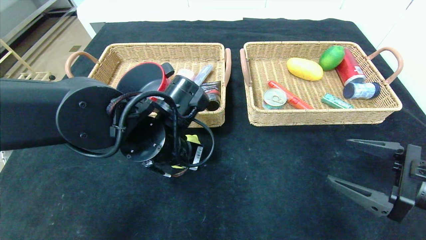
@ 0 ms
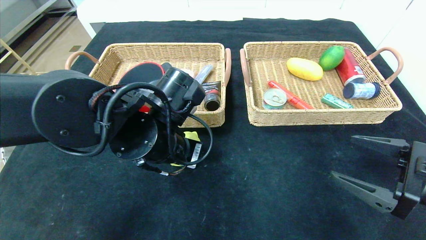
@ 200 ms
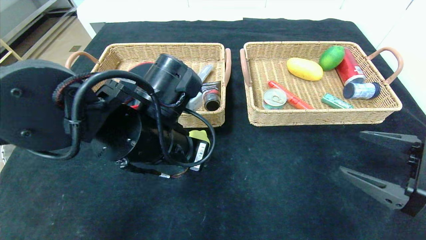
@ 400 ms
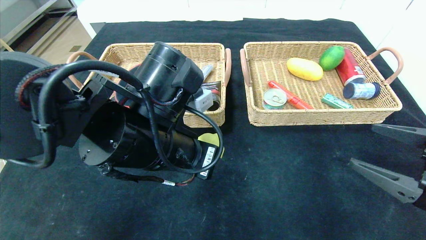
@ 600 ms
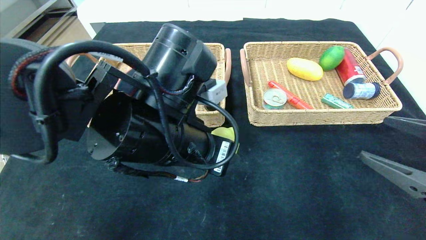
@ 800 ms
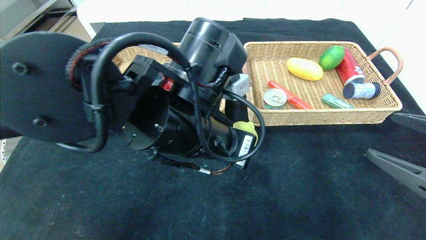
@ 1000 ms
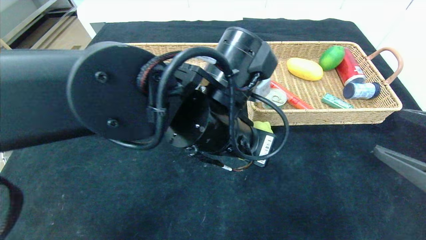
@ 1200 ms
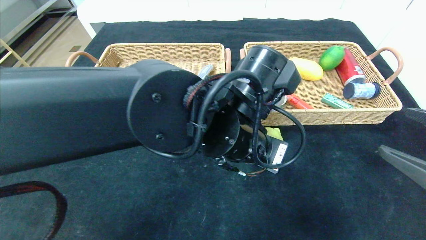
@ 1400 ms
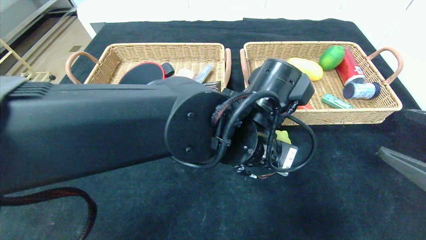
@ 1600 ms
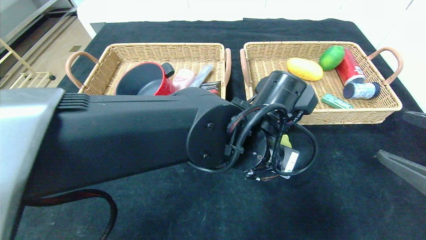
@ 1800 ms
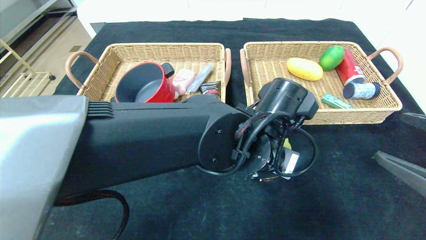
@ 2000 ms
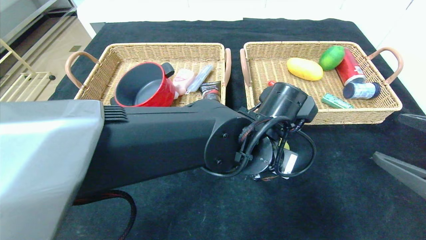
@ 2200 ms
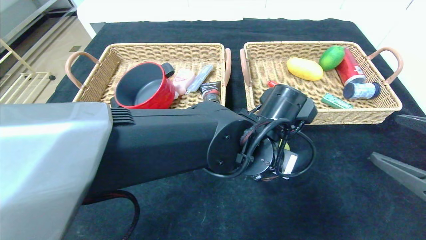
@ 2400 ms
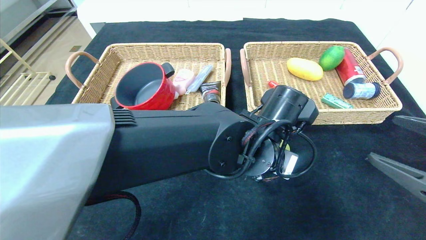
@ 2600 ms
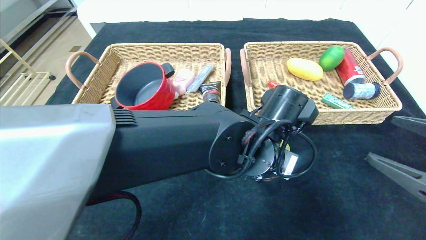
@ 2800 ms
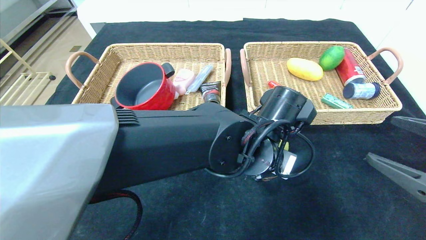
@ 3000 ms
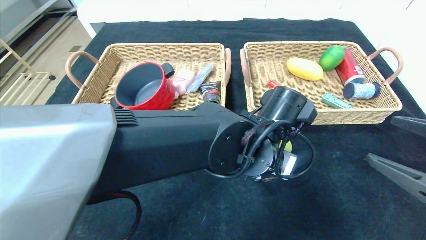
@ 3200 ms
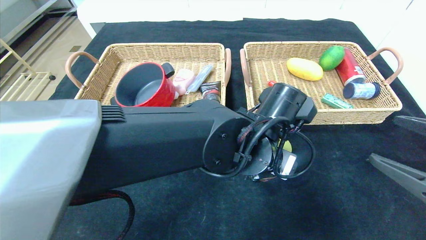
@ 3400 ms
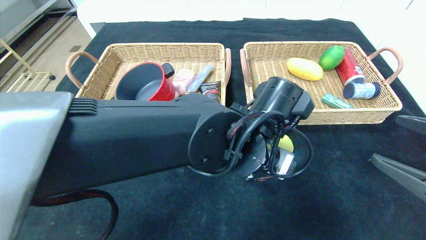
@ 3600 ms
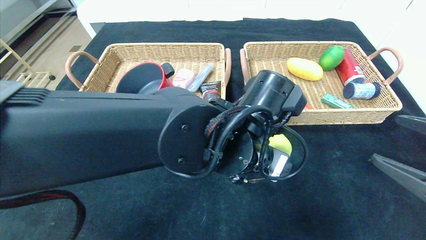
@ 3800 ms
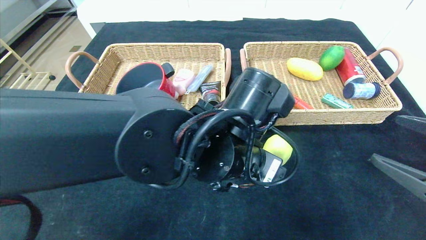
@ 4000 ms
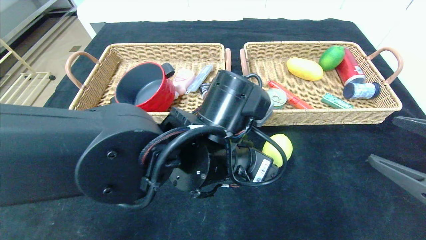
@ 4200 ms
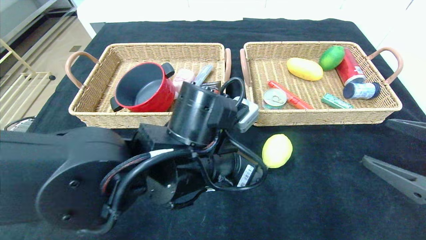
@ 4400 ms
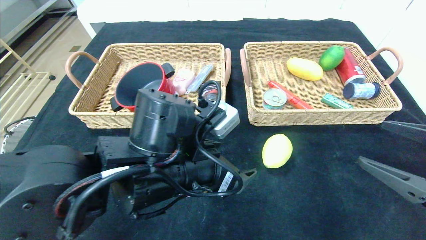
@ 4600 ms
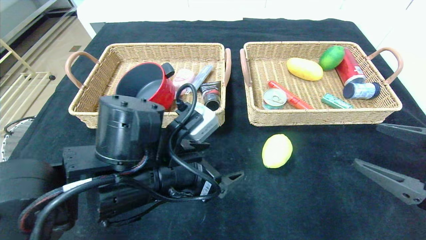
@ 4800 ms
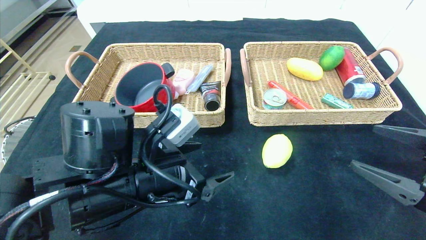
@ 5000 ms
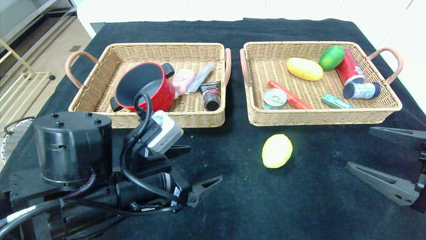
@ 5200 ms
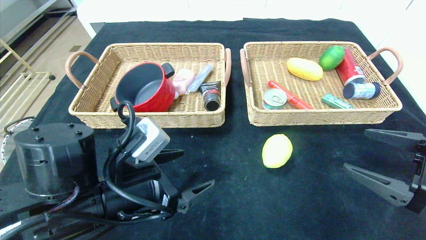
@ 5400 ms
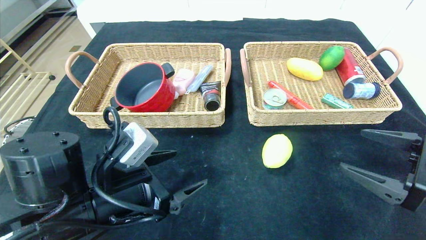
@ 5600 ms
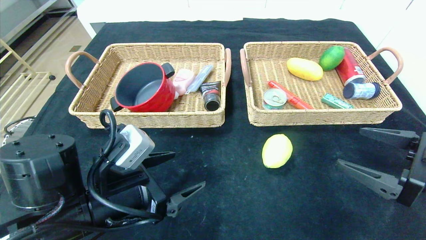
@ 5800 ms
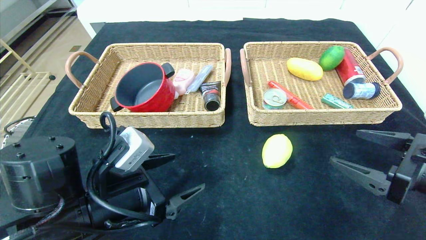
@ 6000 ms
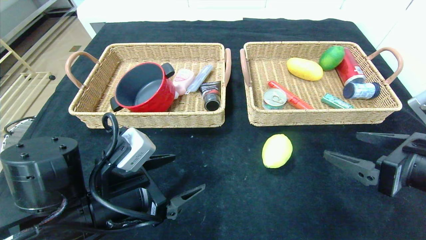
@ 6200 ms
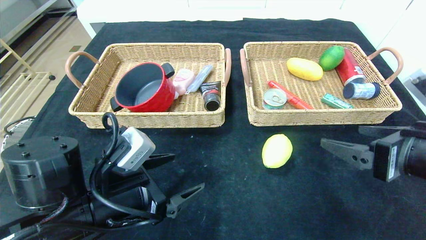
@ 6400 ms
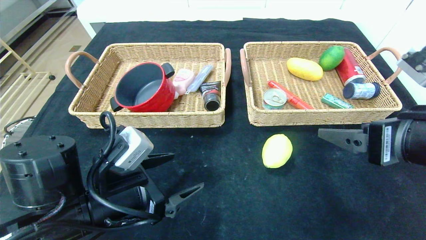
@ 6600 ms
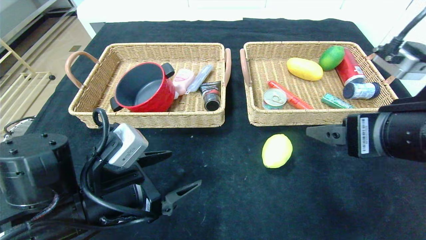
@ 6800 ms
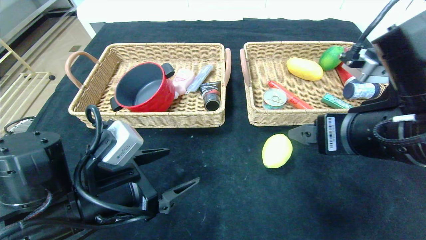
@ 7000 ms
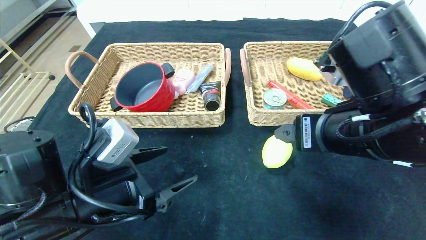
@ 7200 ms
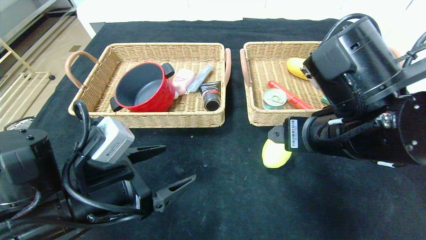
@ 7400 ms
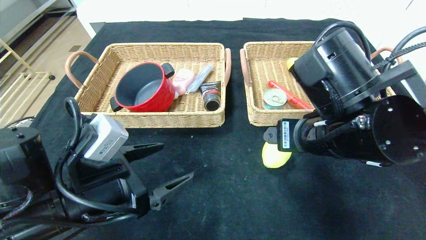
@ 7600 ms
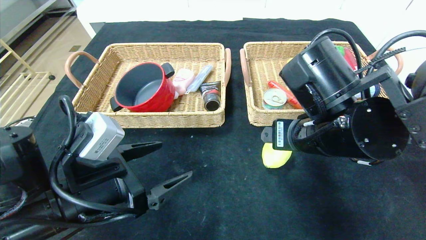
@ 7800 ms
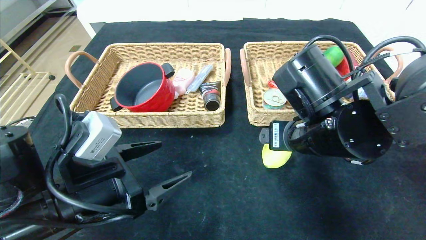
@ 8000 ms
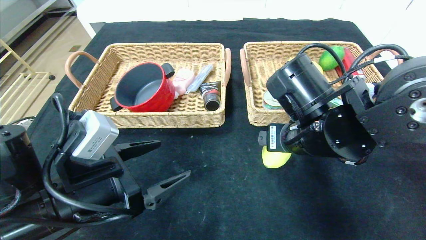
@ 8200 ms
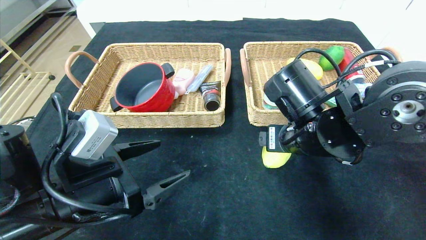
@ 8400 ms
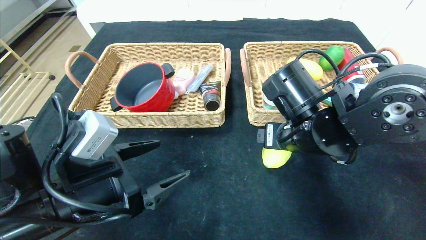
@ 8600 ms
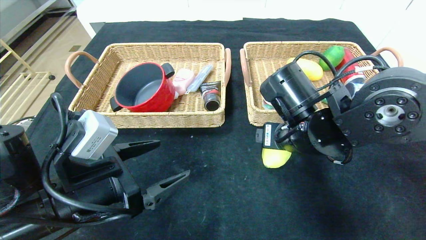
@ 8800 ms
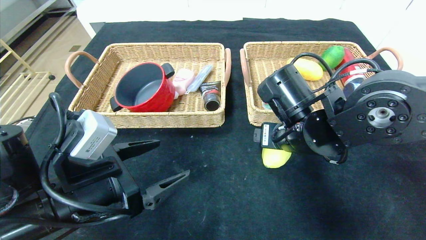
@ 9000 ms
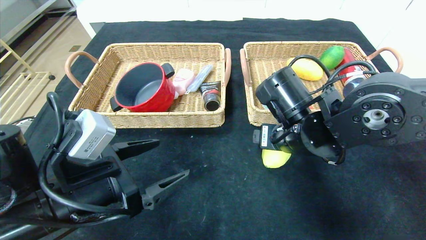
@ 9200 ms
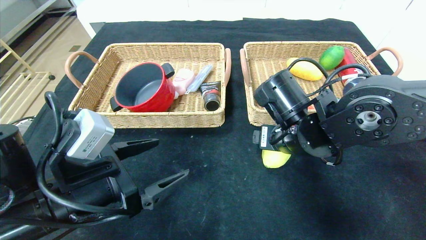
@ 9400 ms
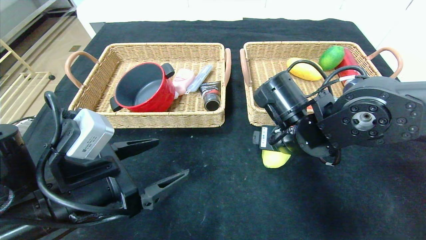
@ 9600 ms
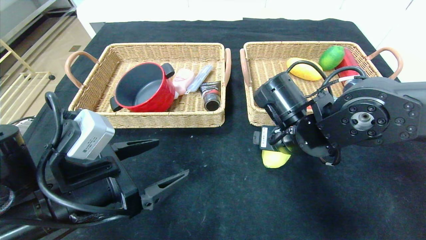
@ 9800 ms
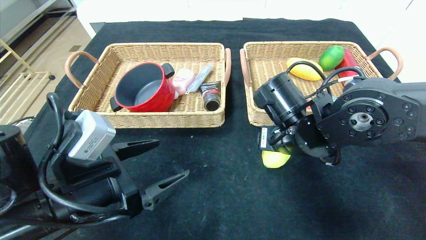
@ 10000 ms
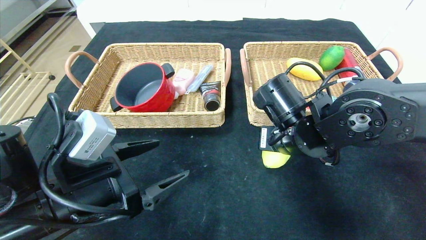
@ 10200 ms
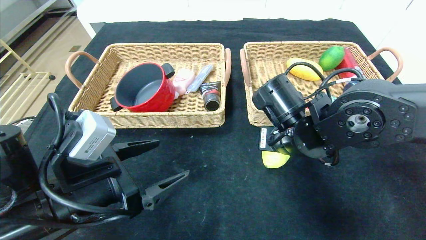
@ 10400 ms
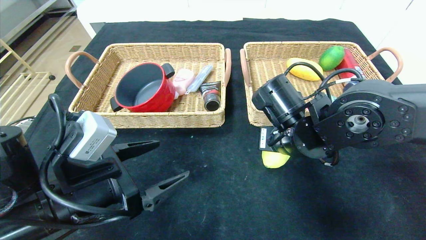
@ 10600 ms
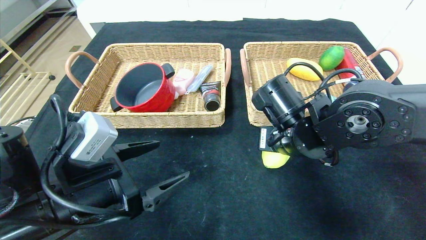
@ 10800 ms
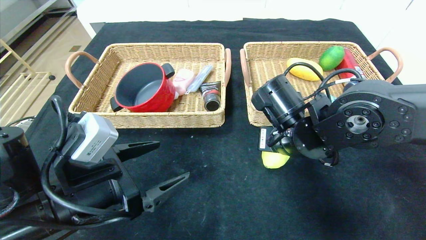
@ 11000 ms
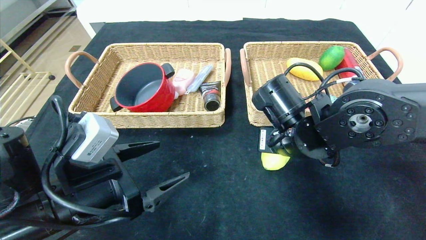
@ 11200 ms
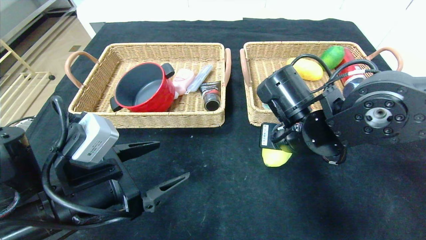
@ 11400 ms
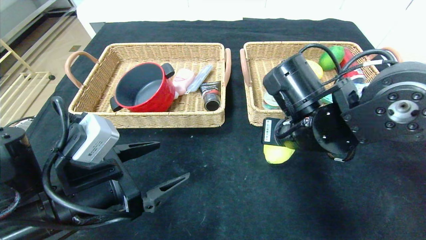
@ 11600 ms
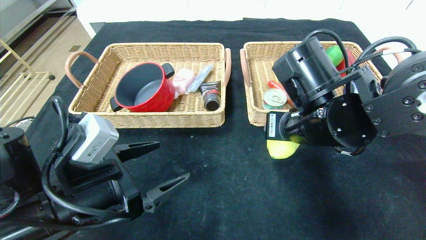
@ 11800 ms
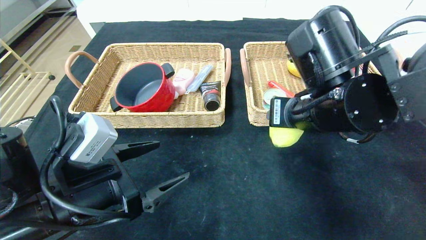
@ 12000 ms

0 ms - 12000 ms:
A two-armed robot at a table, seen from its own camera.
Step, 0 ms - 4600 ms: Place the lemon and put it in the center of the table.
0 ms - 1600 ms: The left gripper travels to the right by approximately 15 cm; the right gripper ends up some 5 cm from where it was.
3000 ms - 4400 ms: The left gripper is displaced to the left by roughly 10 cm.
4400 ms - 6000 ms: The left gripper shifts approximately 15 cm to the left.
6000 ms - 7600 ms: The right gripper shifts some 15 cm to the left.
7600 ms - 9000 ms: The right gripper heads forward, covering roughly 5 cm.
9000 ms - 10400 ms: The right gripper closes.
10400 ms - 12000 ms: The right gripper is displaced upward by about 5 cm.

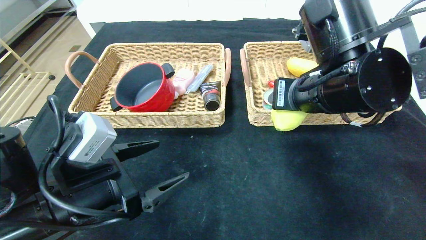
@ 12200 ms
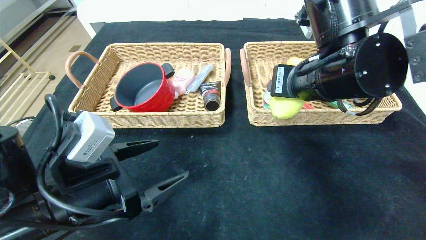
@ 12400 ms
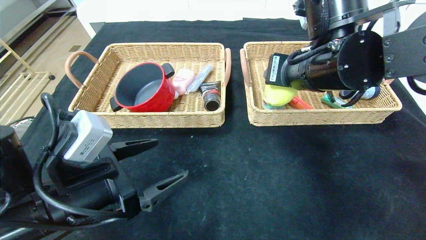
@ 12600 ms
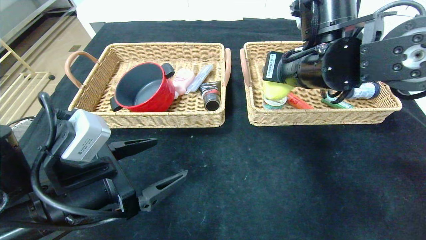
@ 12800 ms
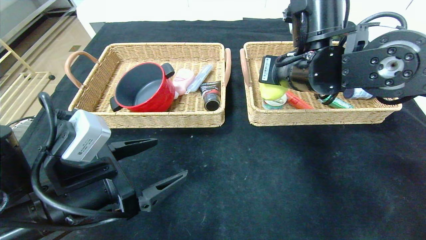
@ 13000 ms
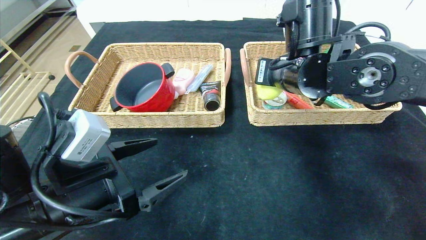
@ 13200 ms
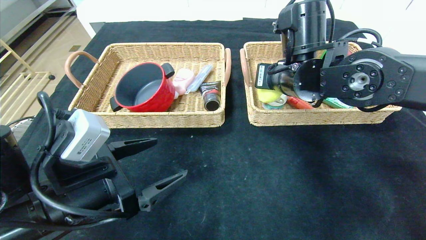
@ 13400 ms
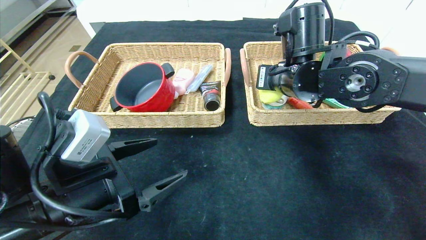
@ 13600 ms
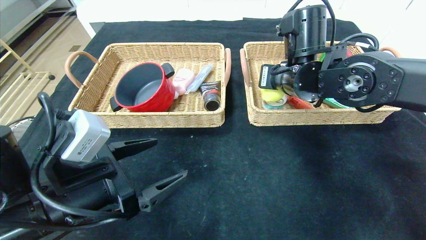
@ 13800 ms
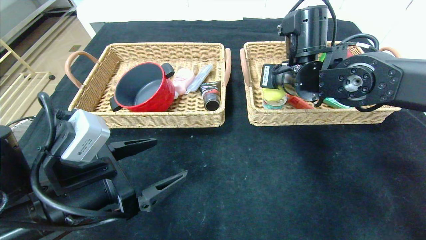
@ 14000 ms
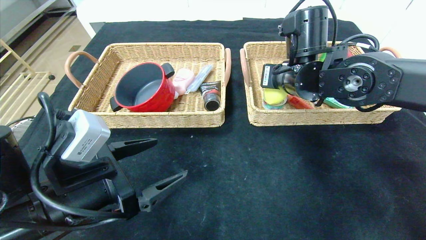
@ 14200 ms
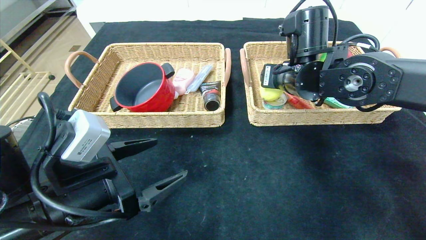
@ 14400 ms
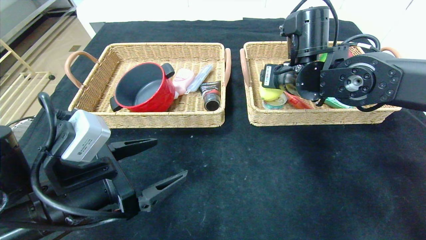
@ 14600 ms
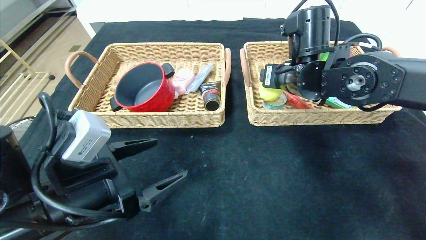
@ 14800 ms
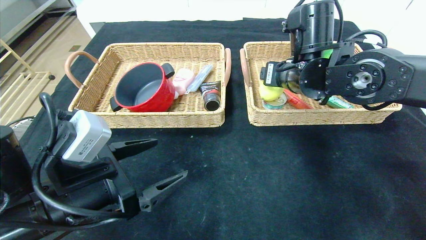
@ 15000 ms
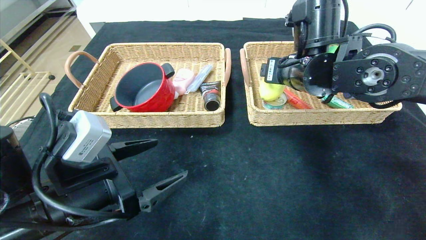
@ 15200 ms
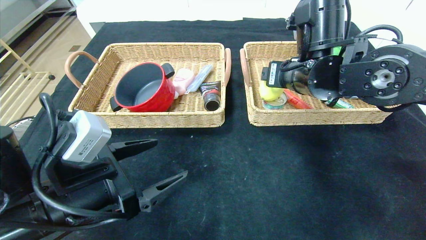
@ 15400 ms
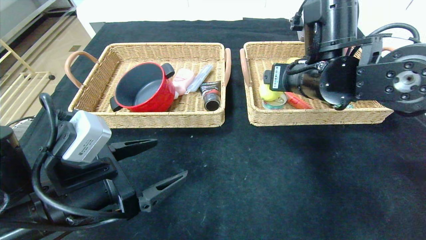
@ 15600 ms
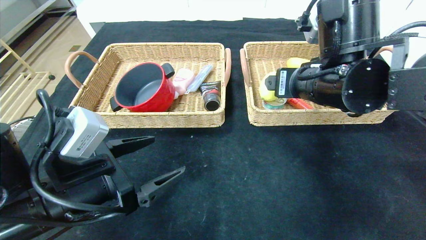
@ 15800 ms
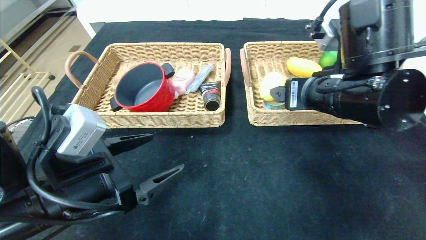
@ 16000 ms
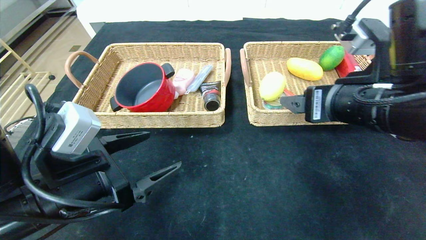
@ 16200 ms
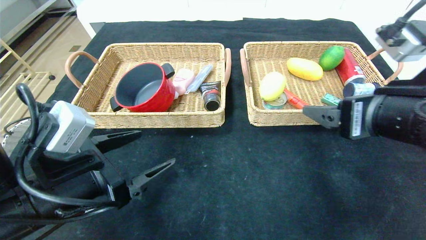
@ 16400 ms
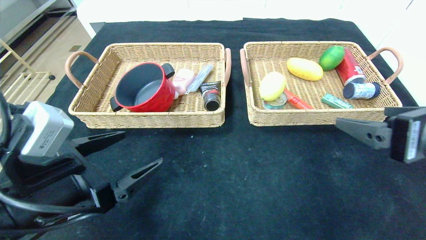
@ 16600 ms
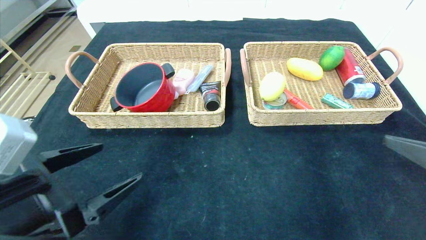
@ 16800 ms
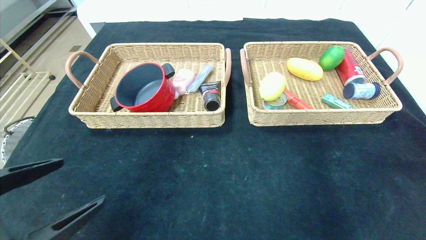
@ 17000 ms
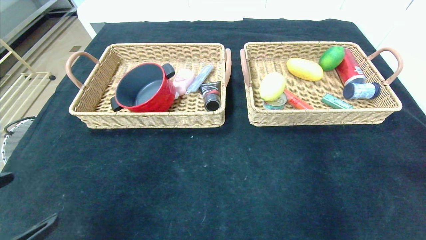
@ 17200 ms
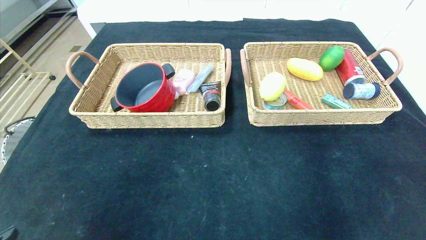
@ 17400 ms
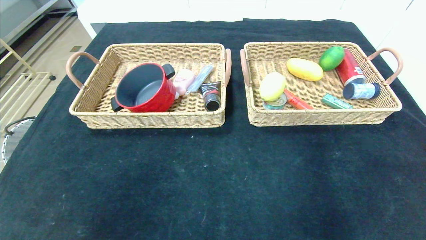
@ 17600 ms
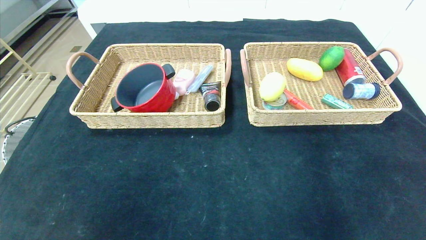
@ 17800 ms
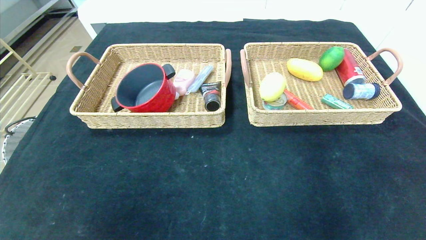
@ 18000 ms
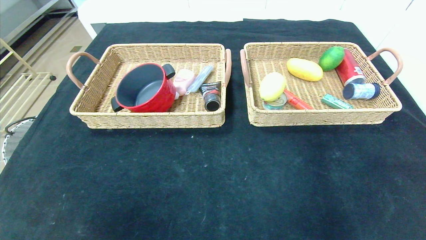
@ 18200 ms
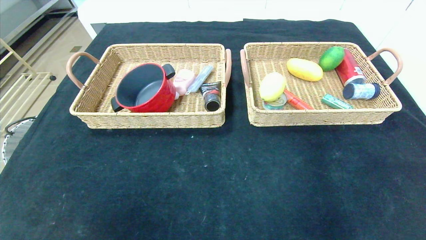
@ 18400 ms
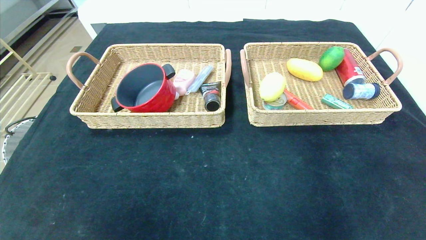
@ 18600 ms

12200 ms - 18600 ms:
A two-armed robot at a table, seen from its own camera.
Step, 12200 ms - 16800 ms: Pick up the lemon and put it in the right basket.
12200 ms - 13800 ms: The right gripper goes roughly 10 cm forward.
13800 ms - 15400 ms: The right gripper opens its fingers.
15400 ms - 17000 ms: The left gripper heads backward and to the left, covering some 10 cm. The right gripper travels backward and to the right by some 35 cm.
17000 ms - 18600 ms: The right gripper moves backward and downward, about 20 cm. Meanwhile the left gripper travels backward by about 20 cm.
